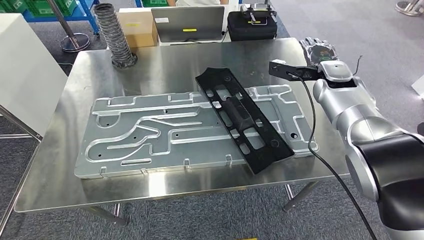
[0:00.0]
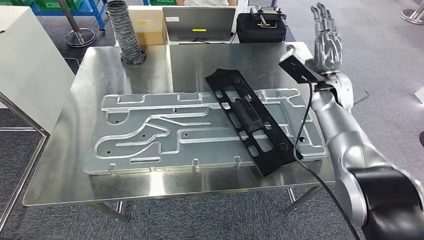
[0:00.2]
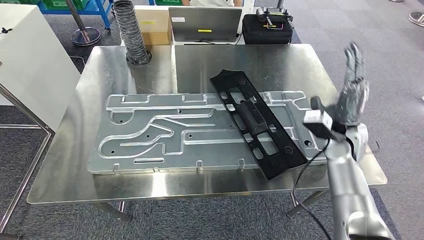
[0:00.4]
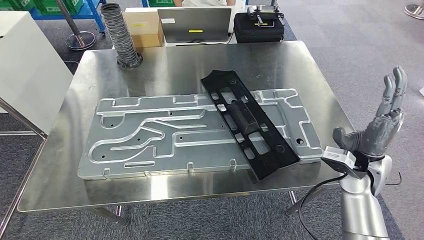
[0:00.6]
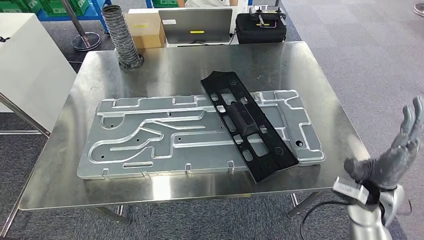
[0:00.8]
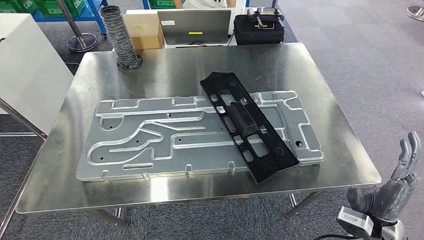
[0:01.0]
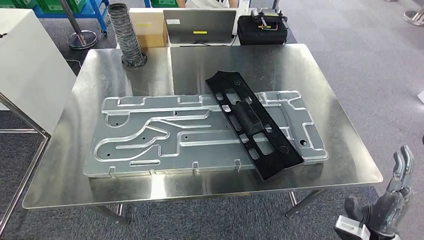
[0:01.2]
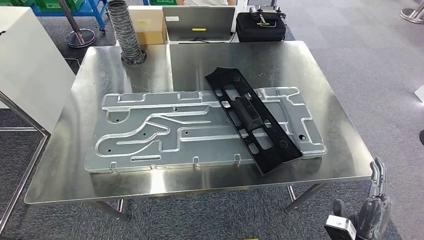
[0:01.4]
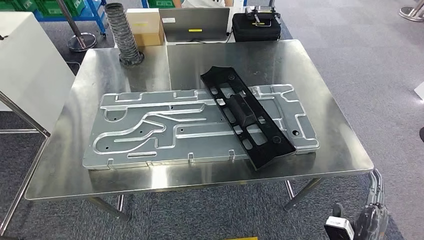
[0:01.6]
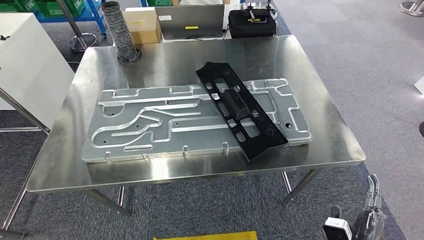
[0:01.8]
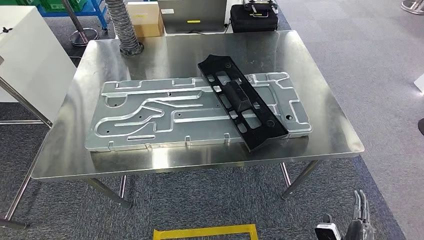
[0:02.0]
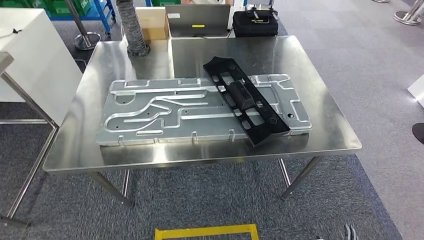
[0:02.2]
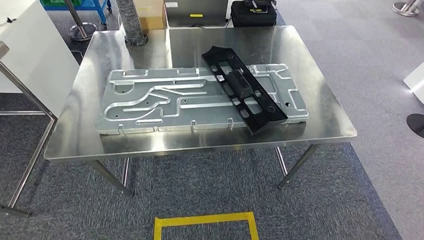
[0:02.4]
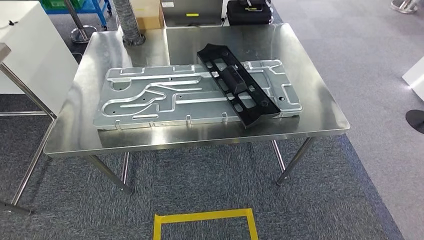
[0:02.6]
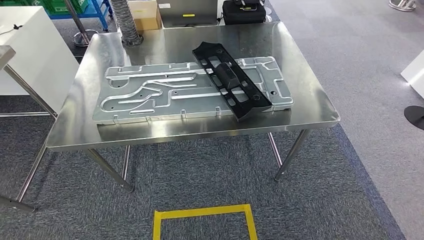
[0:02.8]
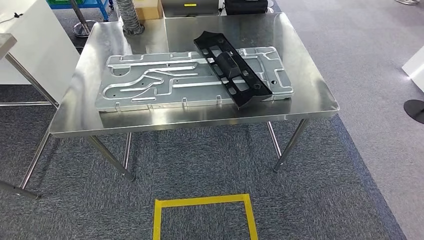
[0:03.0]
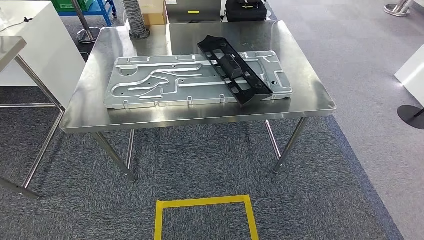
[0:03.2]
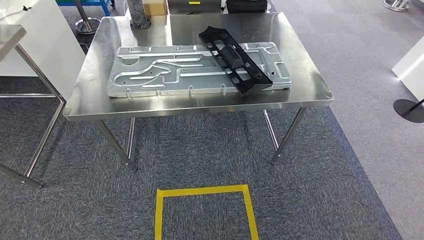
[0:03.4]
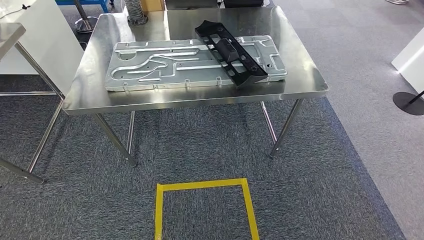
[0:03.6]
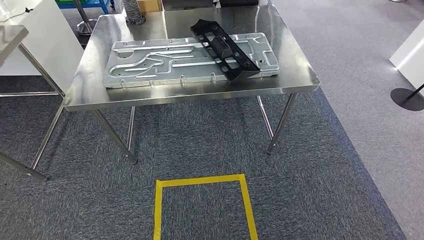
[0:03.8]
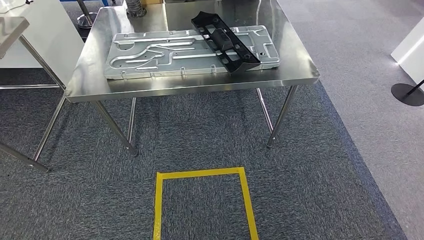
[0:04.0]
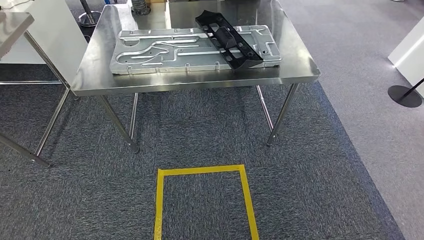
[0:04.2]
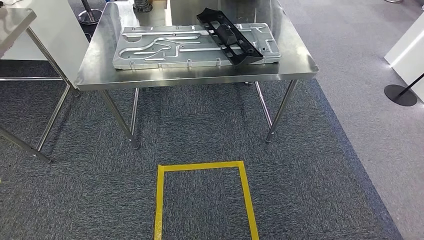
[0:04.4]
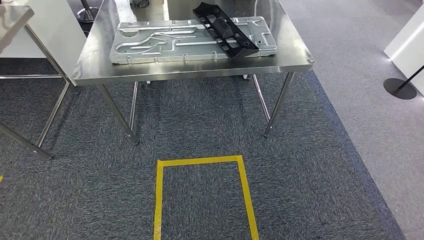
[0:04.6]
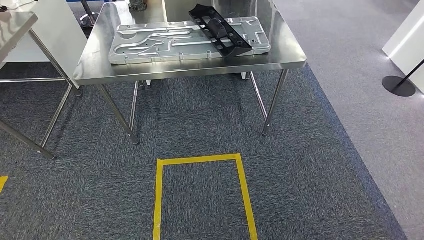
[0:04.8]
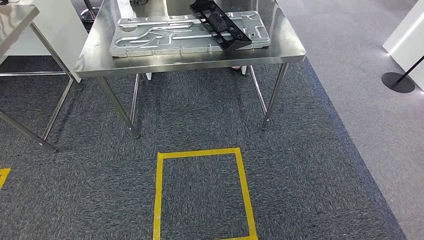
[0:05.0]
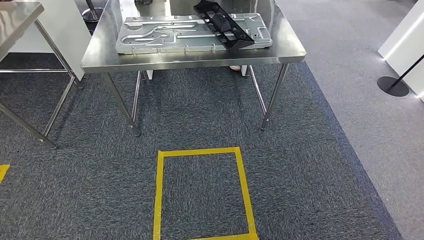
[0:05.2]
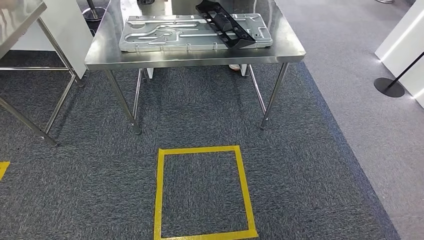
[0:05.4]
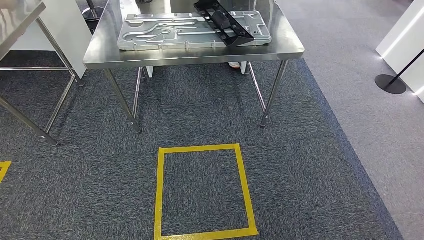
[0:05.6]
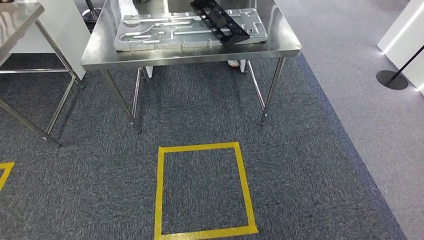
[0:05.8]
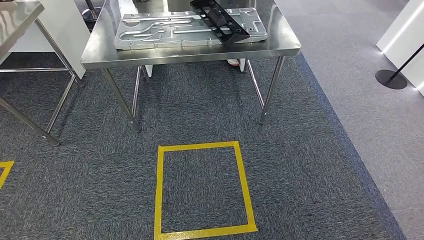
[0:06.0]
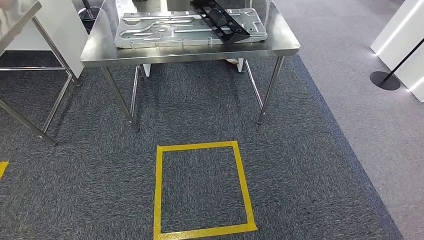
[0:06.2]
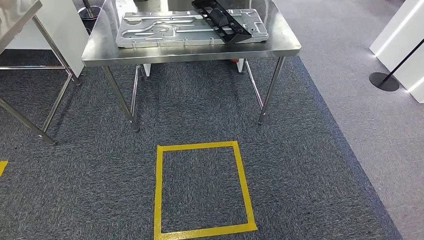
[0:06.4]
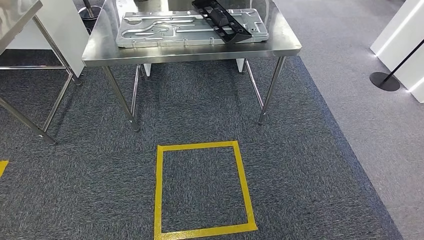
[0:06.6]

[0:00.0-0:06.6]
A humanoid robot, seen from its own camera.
Step, 0:02.8 to 0:06.6: Move to the initial position of the shelf.
0:05.0 to 0:06.6: The hands move only a little.
